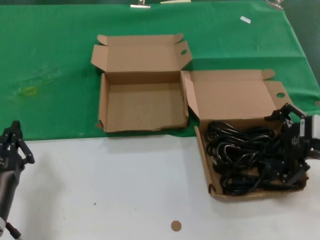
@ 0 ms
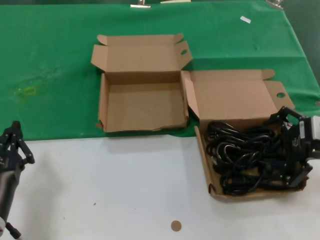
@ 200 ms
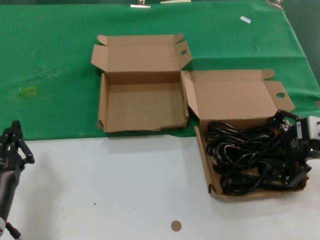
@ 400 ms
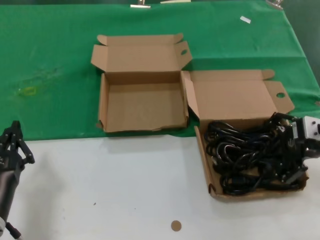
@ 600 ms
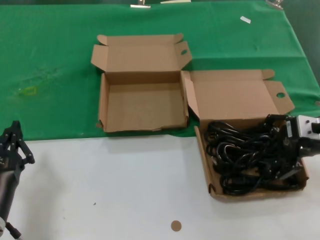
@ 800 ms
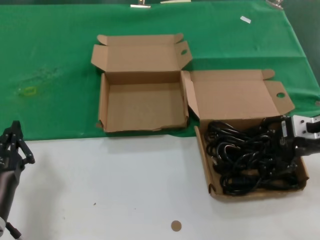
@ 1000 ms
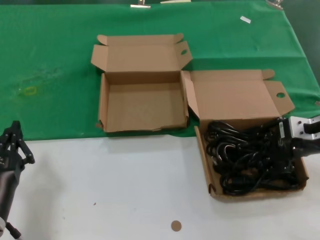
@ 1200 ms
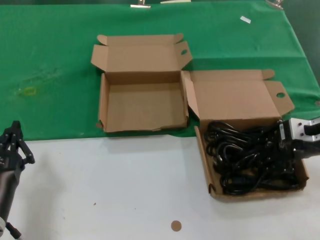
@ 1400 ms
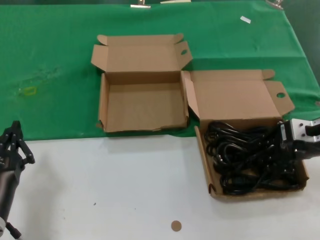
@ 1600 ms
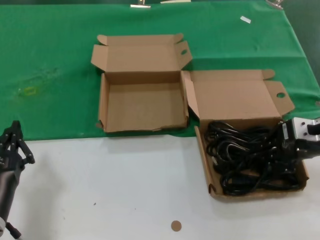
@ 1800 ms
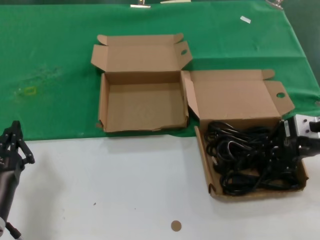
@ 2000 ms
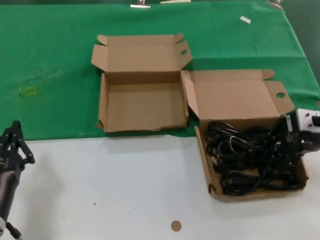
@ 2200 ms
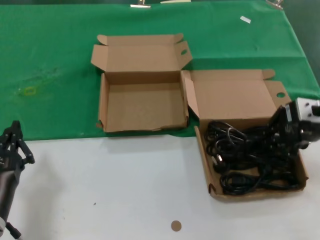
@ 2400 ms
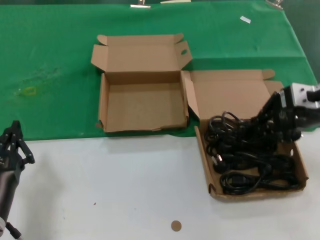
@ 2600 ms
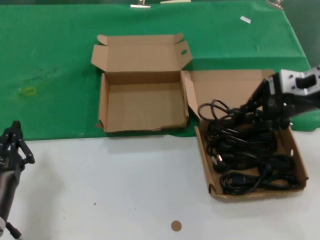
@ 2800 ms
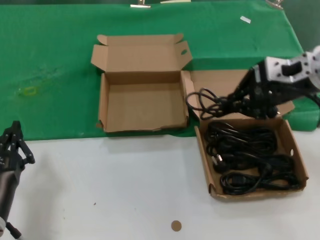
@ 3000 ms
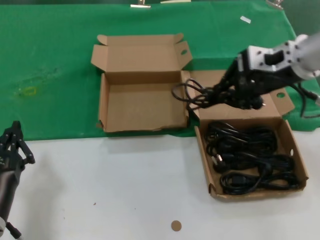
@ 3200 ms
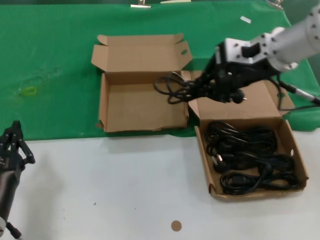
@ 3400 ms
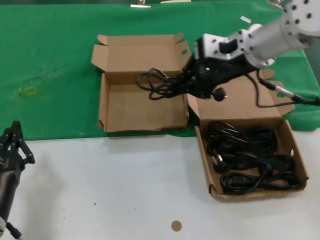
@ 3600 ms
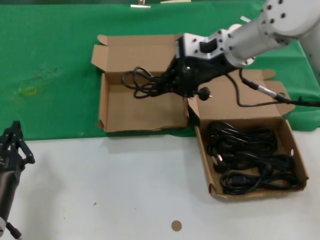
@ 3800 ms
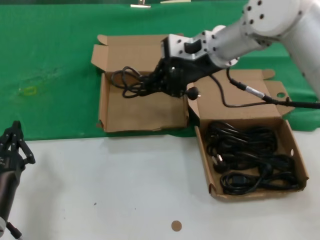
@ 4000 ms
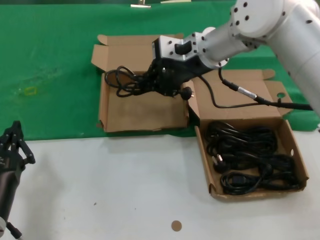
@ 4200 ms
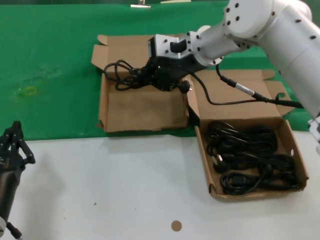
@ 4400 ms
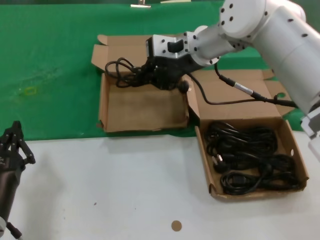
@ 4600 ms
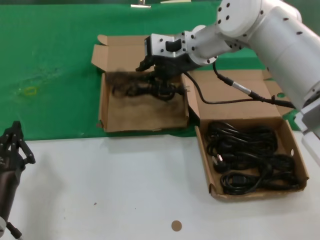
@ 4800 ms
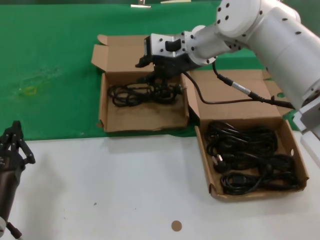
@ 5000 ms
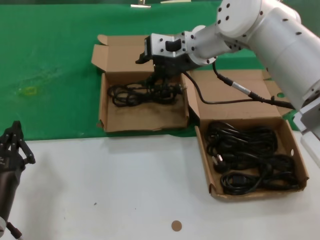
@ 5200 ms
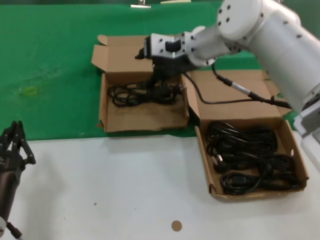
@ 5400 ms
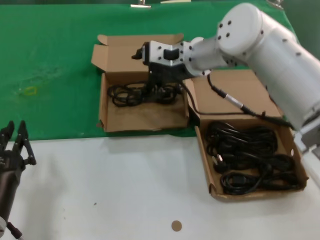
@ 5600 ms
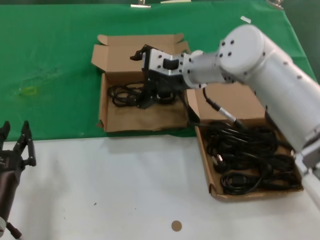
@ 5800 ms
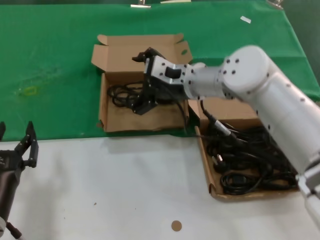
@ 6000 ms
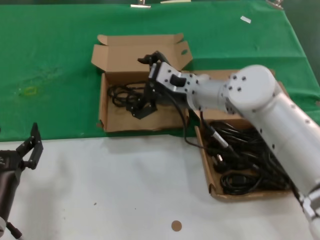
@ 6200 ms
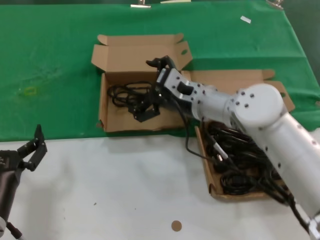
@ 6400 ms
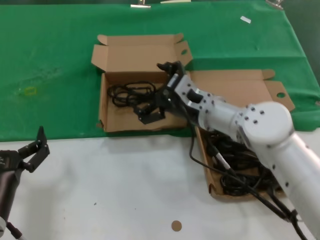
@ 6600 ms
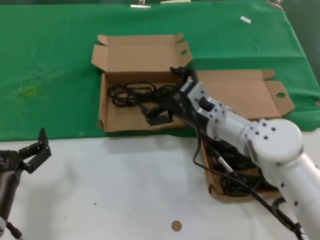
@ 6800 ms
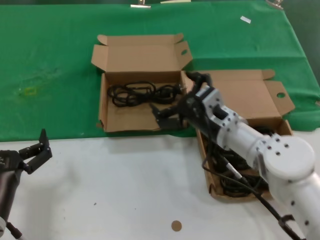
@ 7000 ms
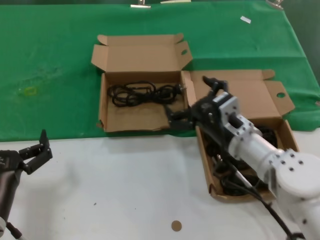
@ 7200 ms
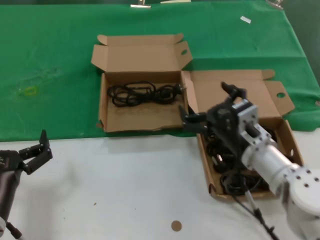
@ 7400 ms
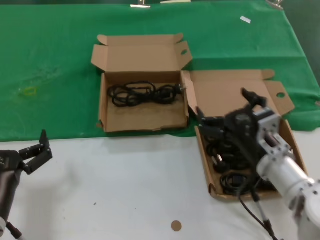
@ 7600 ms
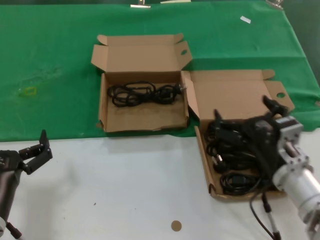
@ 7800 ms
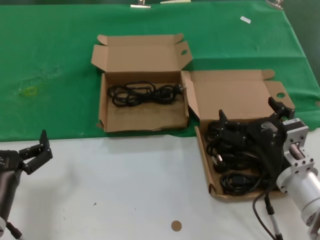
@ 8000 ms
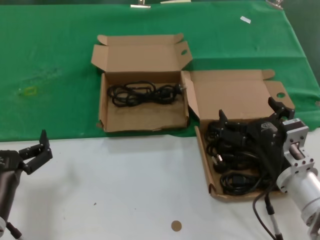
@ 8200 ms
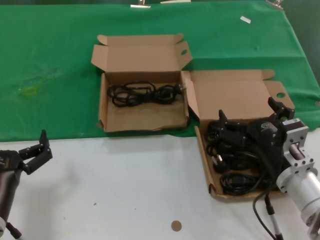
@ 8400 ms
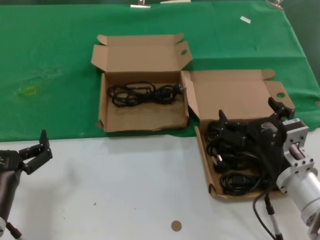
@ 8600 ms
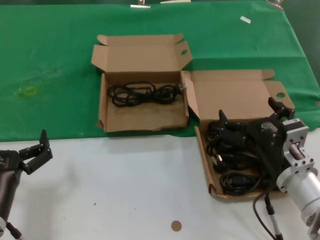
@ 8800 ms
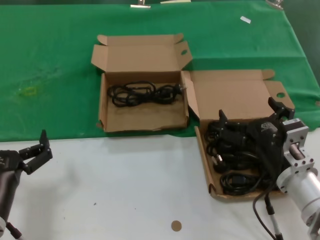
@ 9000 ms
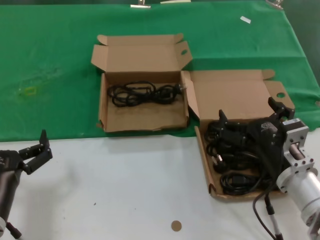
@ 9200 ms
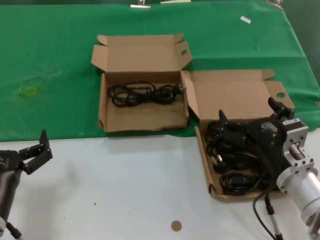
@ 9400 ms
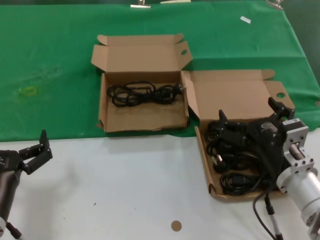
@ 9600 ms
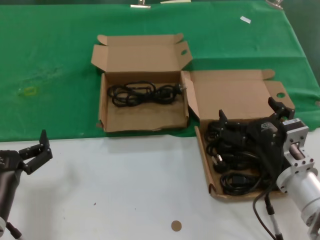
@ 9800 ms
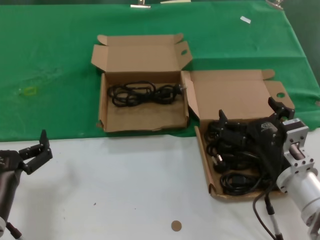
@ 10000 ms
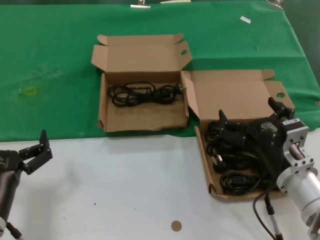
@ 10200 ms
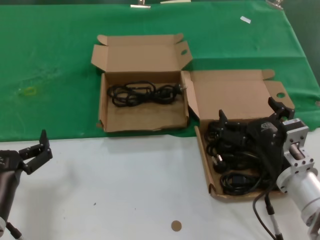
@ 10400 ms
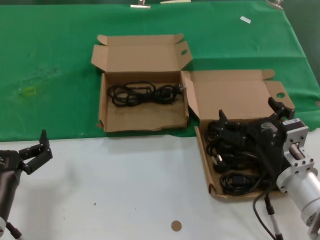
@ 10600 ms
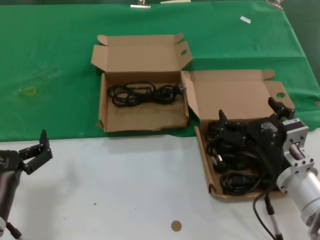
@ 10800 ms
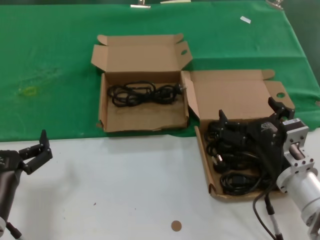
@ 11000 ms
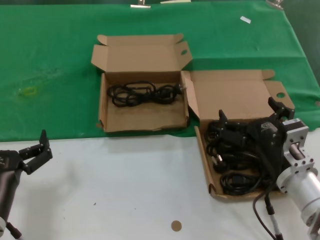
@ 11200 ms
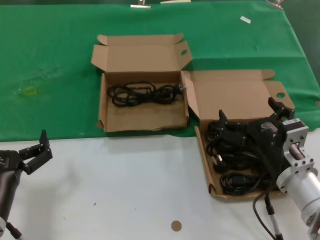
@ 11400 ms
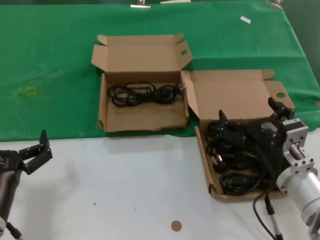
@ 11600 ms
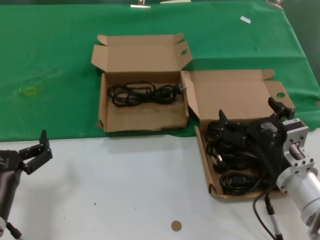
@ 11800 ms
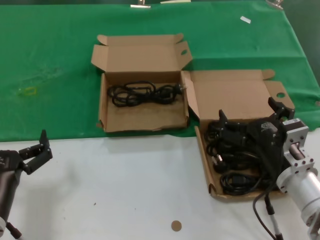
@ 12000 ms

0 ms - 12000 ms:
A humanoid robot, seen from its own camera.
Task of the whole recording: take the parts from the box containing them and put them into an empty box.
Step, 1800 ms - 4800 ms: Place the data cable in the another box.
0 ms - 1600 ms: The right hand heads forward, covering about 5 cm.
1600 ms - 3000 ms: The right hand heads upward and to the left, covering approximately 10 cm.
3000 ms - 4400 ms: The right hand shifts about 20 cm to the left and forward.
4400 ms - 6000 ms: The right hand moves downward, about 10 cm.
6000 ms - 7600 ms: The right hand travels backward, downward and to the right by about 25 cm.
7600 ms - 9000 ms: There are only small adjustments of the hands.
9000 ms - 12000 ms: The two hands keep their place.

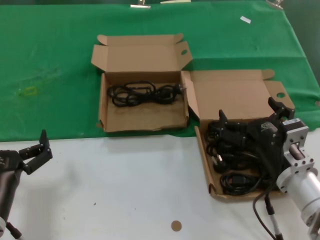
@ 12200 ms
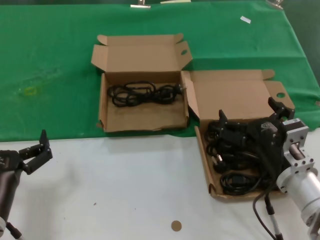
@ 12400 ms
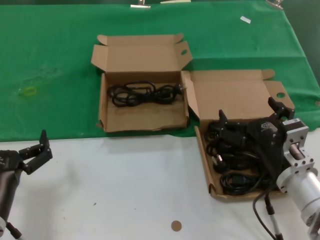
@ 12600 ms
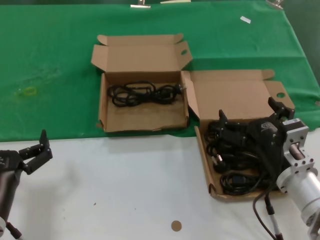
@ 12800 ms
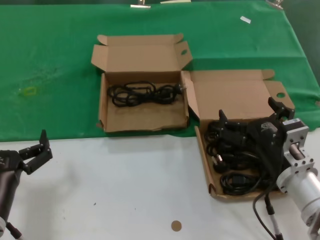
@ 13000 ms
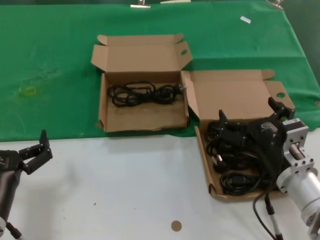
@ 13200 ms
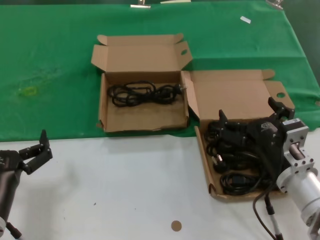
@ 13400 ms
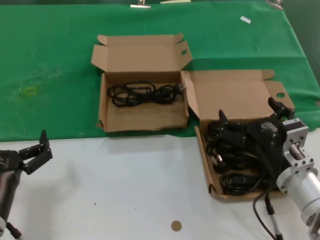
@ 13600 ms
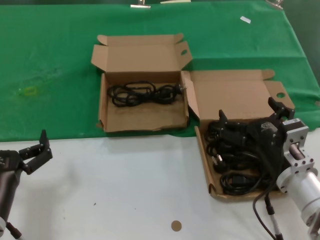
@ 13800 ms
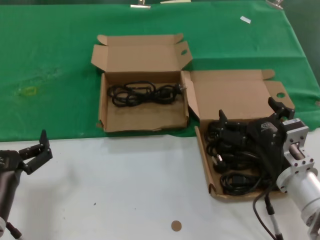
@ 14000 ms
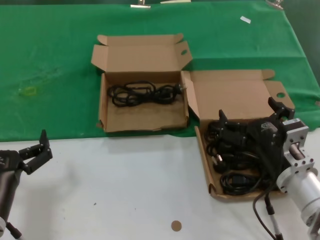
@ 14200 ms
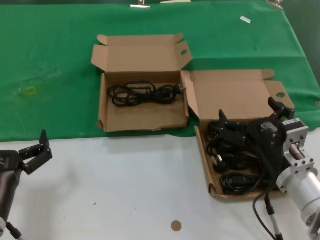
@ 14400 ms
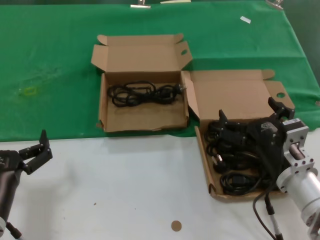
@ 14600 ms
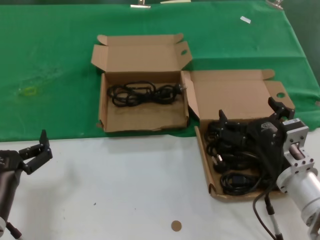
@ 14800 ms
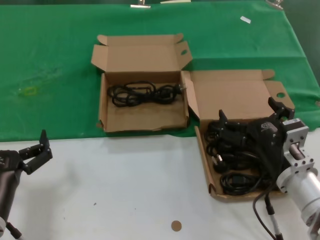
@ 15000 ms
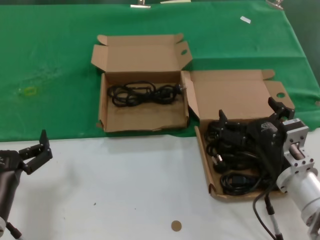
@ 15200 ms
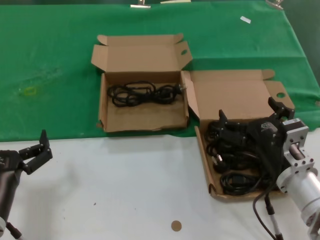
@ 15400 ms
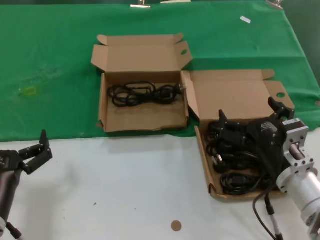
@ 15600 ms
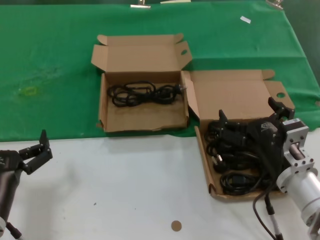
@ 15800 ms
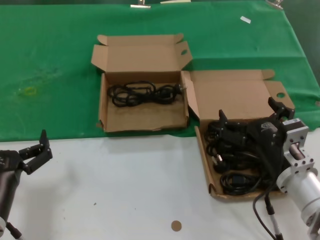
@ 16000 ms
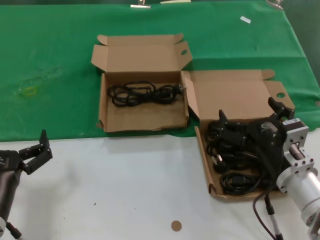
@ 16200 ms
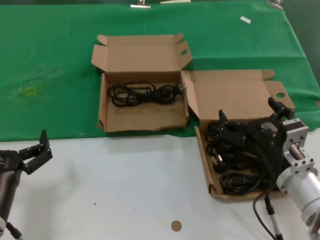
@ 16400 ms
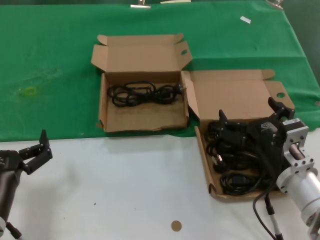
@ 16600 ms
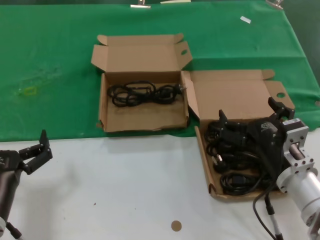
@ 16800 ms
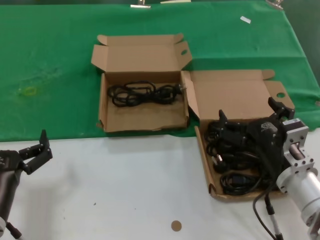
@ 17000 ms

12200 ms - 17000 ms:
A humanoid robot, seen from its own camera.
Task of the whole recording: take the parts from the box containing them and put them into an empty box.
12200 ms - 17000 ms: Both hands stay put.
